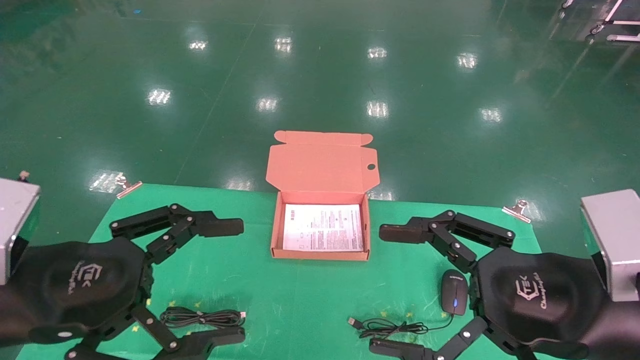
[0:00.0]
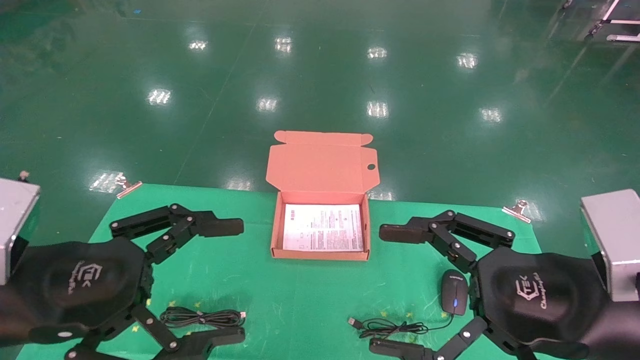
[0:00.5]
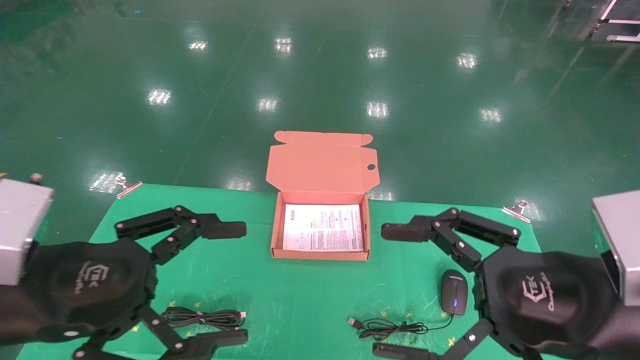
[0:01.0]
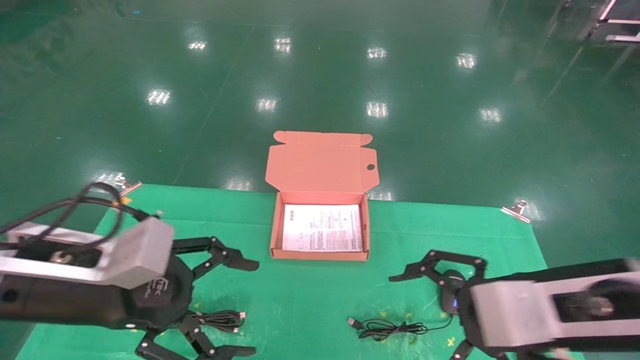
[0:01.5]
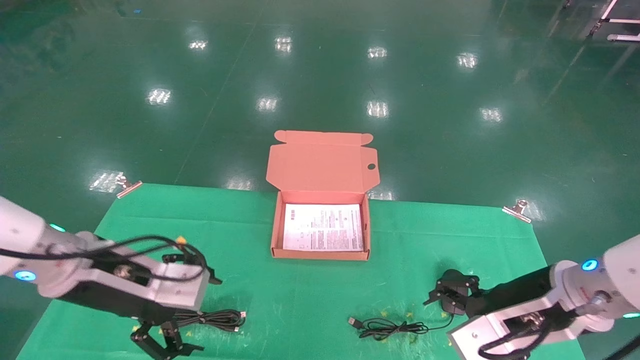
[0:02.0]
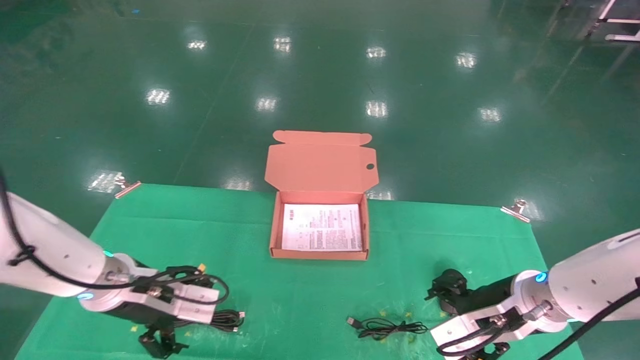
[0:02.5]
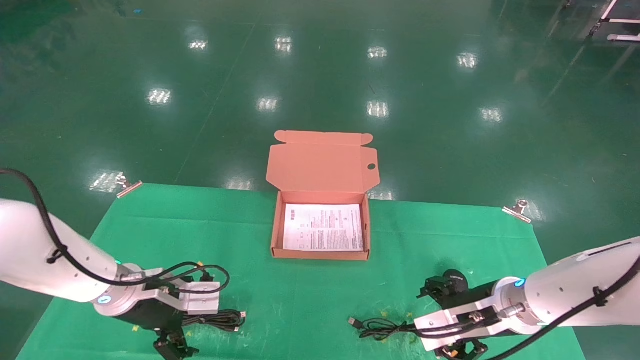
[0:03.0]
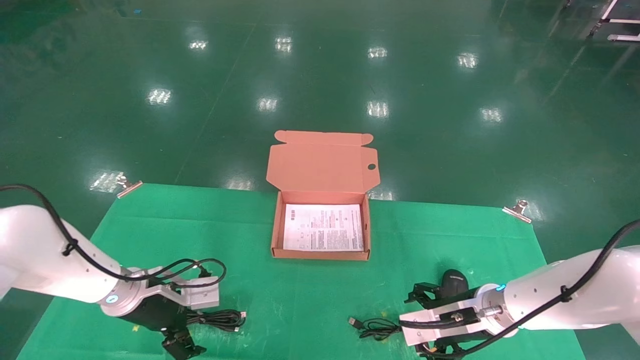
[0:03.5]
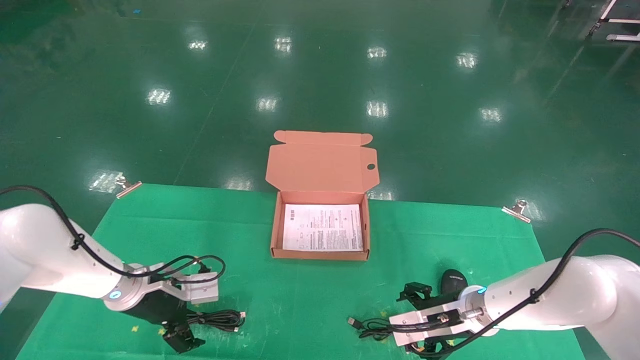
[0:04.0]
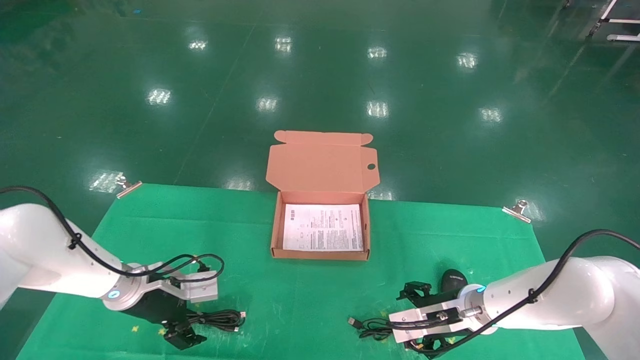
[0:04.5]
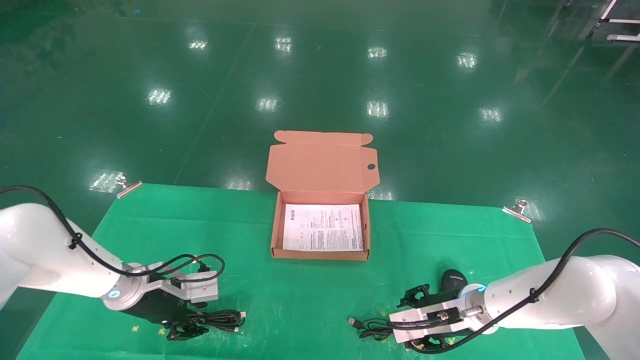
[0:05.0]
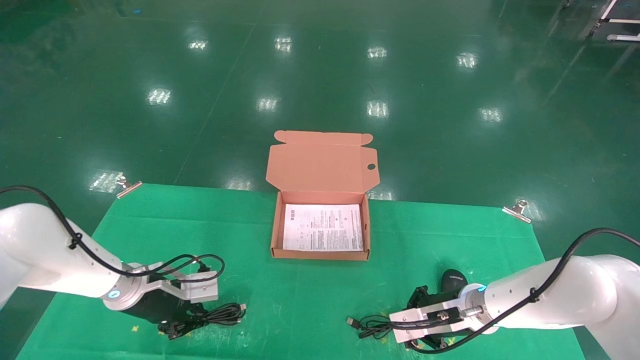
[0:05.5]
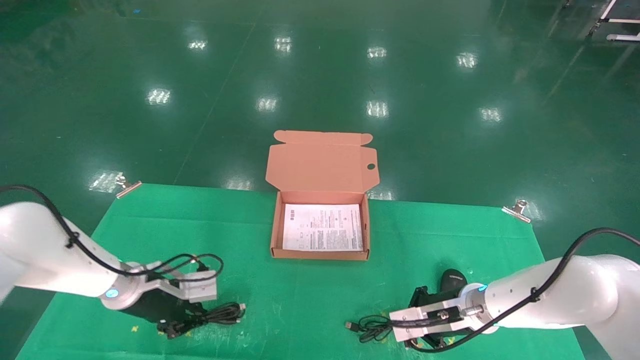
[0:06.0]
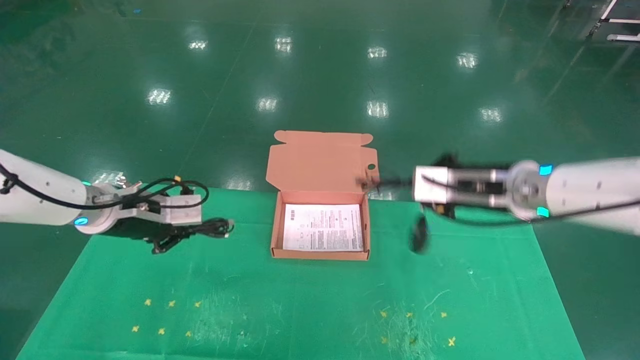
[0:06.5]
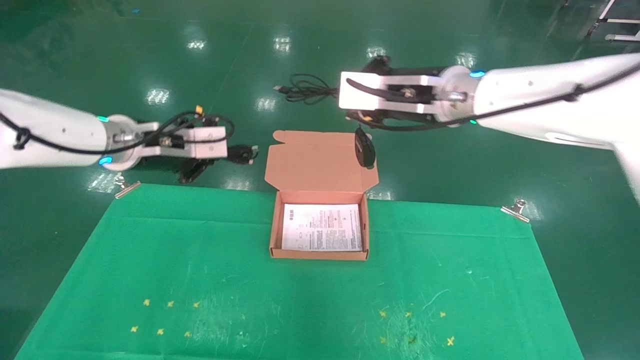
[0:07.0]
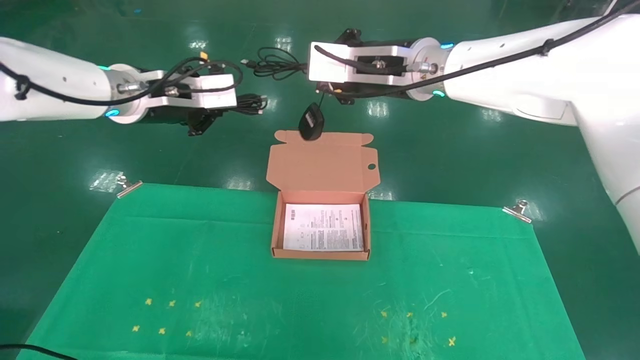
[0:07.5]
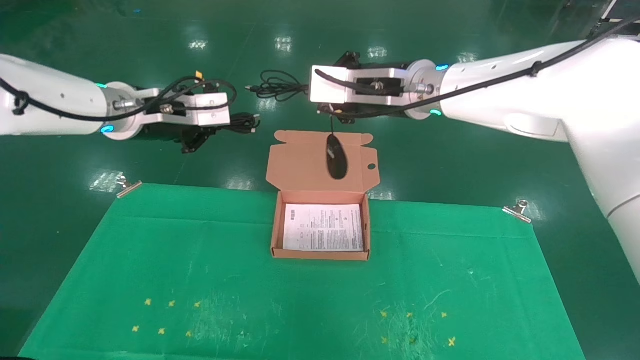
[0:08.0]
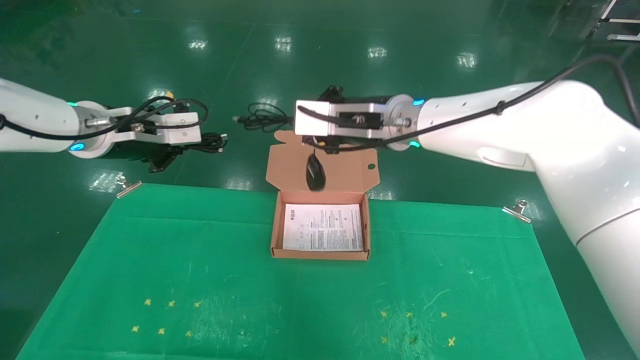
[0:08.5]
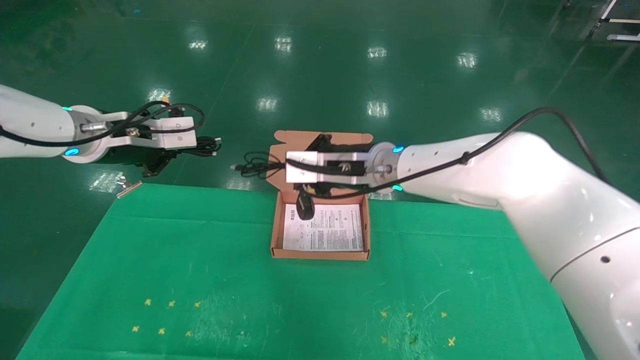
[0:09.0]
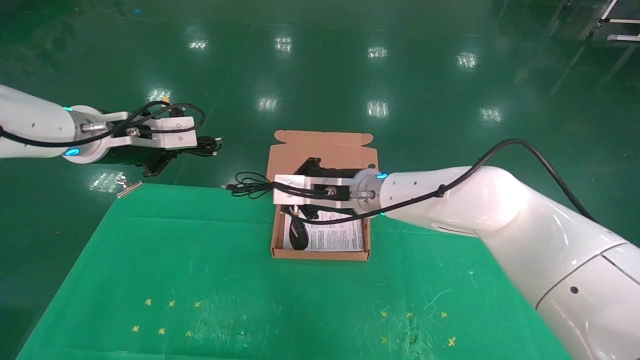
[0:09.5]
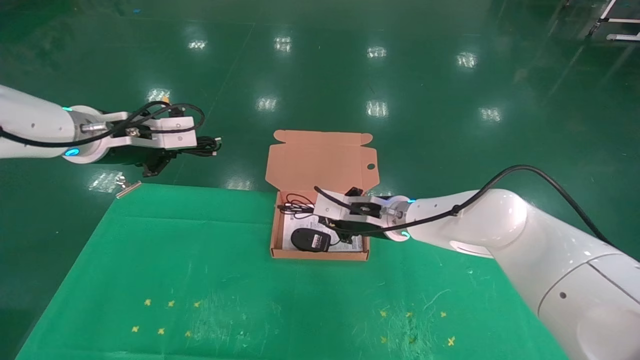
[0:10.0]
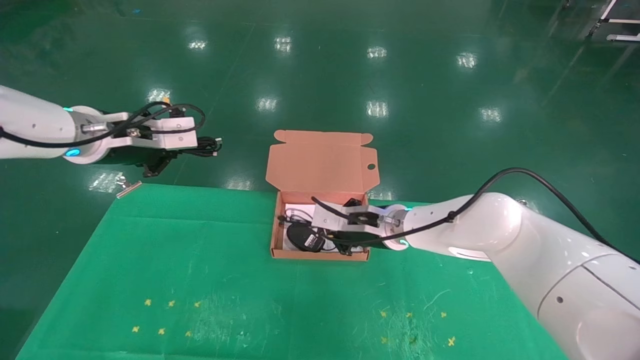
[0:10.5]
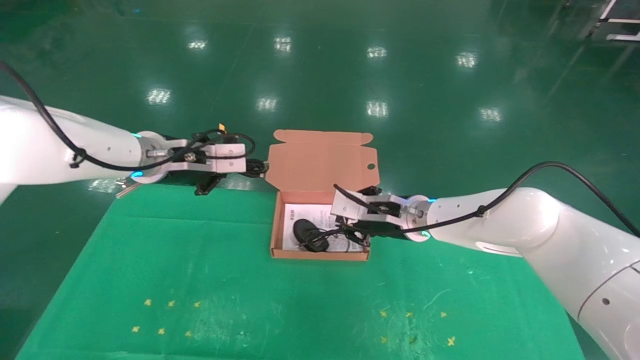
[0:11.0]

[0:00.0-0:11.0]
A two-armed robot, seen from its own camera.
Task of the whole recording: grasp data cable left put into box grasp mouse right put into box.
Step, 0:01.0 to 0:06.0: Grab and pick up both the mouse and power cord from the accessory packaging area at the same time.
0:00.0 to 0:02.0: Both grippers move forward and downward, about 15 cm.
0:02.0 to 0:03.5: Both grippers move forward and downward, about 15 cm.
0:03.5 to 0:05.5: The left gripper closes. The right gripper closes.
0:05.5 to 0:07.5: The grippers both shift upward by about 30 cm.
0:07.5 to 0:09.0: The right gripper moves downward, roughly 10 cm. The left gripper shifts some 5 cm to the left.
0:09.0 to 0:11.0: The left gripper travels to the right by approximately 10 cm. The right gripper heads downward and to the right, covering some 10 cm.

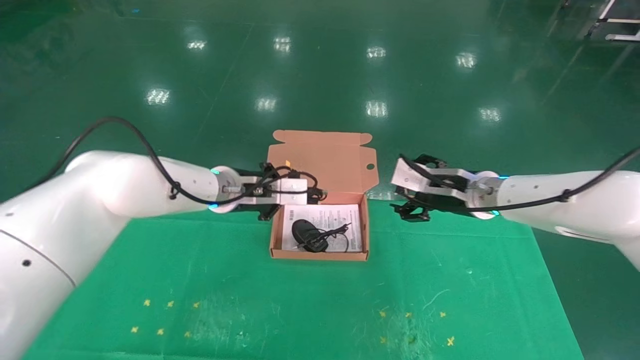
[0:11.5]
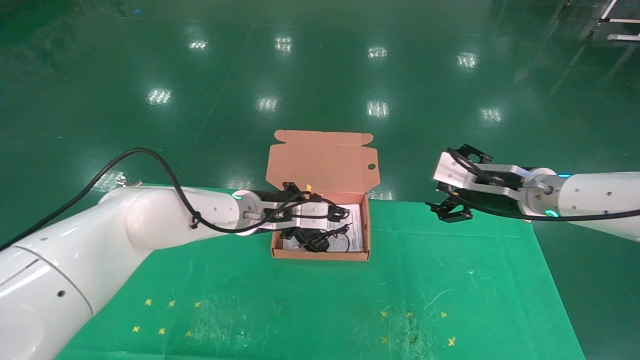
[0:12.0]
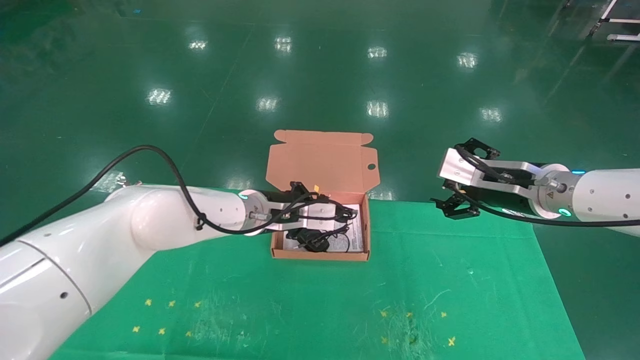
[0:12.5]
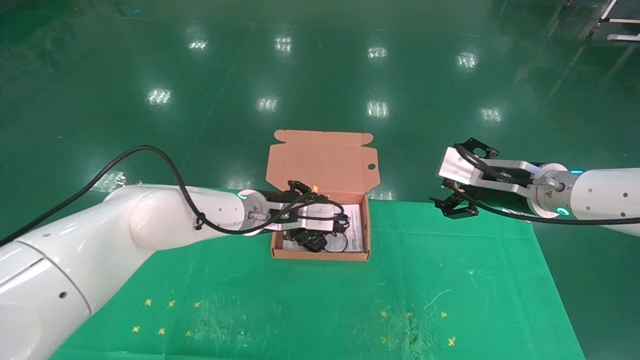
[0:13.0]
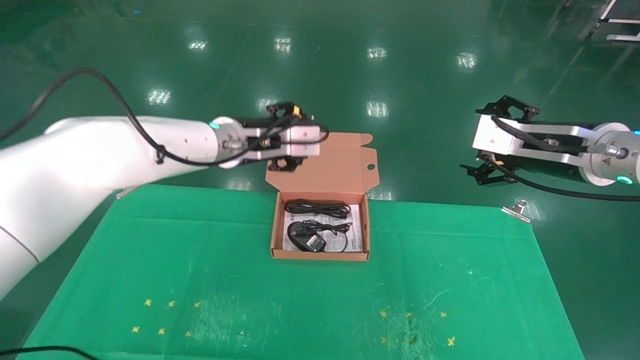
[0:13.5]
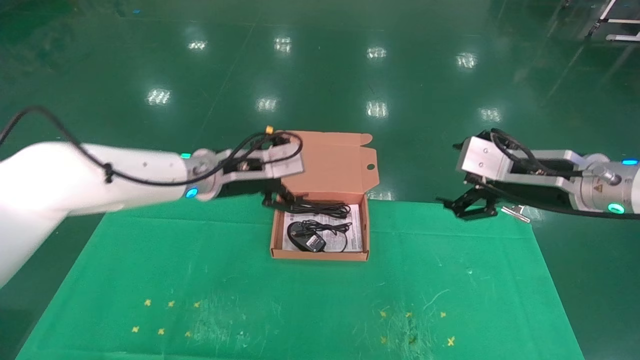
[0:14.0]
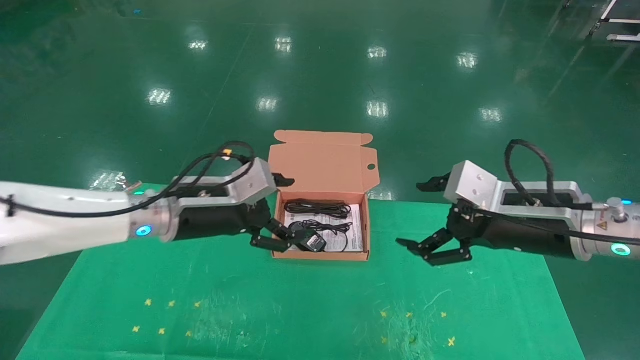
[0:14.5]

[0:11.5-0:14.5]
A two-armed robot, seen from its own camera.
Task of the whole recording: grasp data cable left put into box grasp mouse right put into box.
0:11.5 to 0:13.0: The right gripper shifts some 5 cm backward and to the right.
0:13.0 to 0:14.5: The left gripper shifts roughly 10 cm backward and to the left, and opens. Meanwhile the right gripper heads backward, covering some 10 cm.
